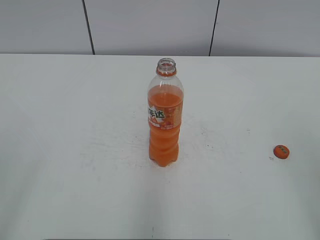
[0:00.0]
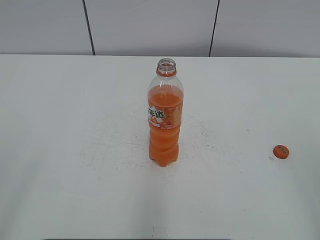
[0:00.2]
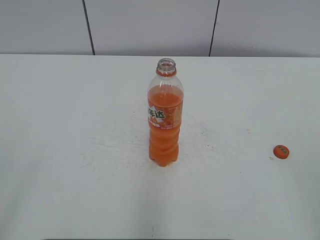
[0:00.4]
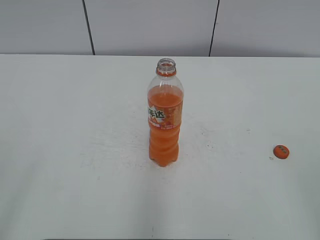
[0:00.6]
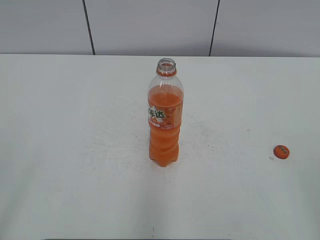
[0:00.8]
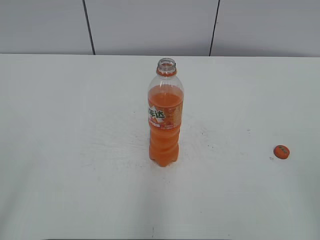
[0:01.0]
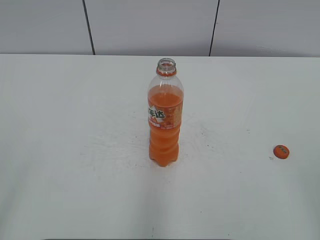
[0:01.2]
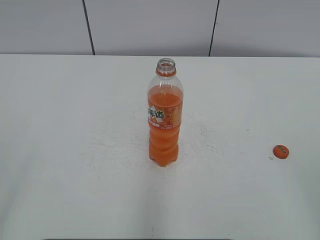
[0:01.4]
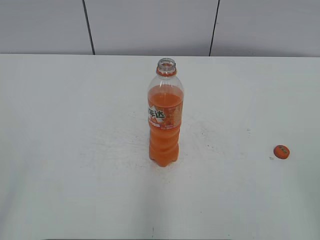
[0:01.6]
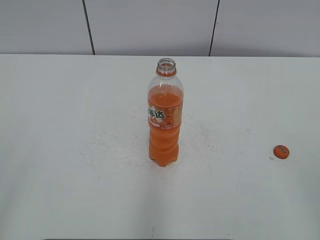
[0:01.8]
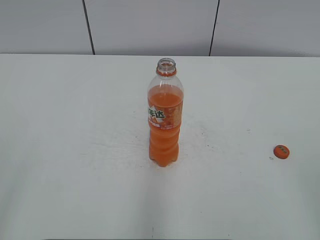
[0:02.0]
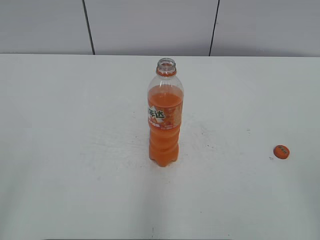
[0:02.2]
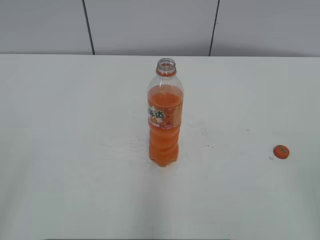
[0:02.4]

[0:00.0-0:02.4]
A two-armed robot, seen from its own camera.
0:01.2 to 0:02.4: Neither gripper changes place.

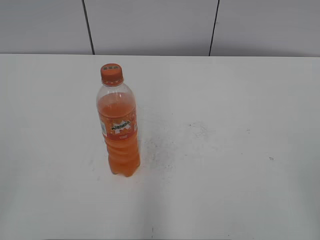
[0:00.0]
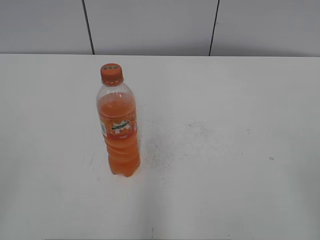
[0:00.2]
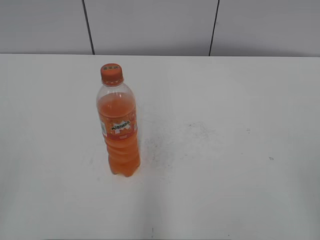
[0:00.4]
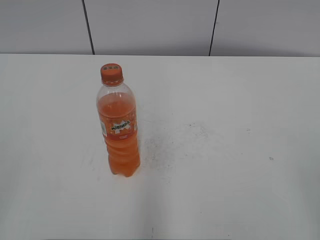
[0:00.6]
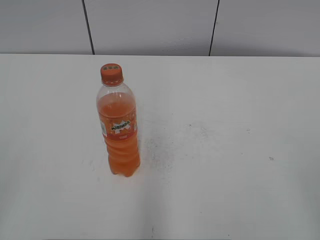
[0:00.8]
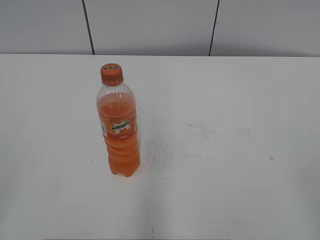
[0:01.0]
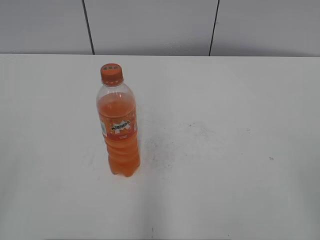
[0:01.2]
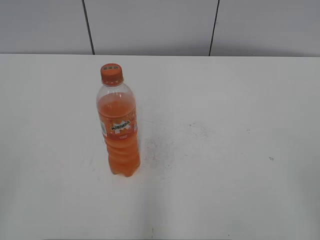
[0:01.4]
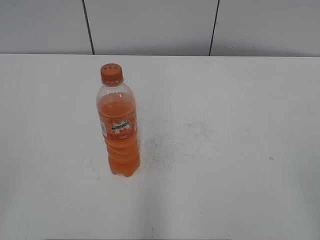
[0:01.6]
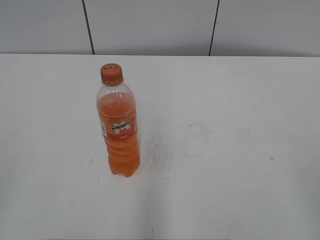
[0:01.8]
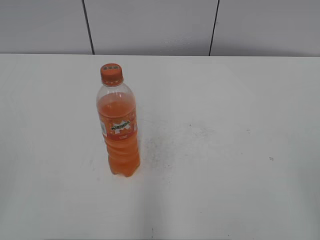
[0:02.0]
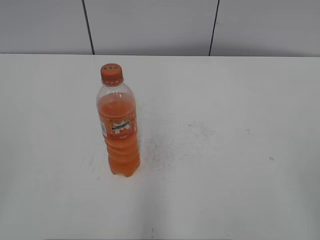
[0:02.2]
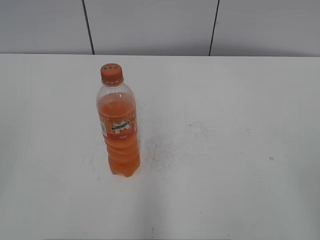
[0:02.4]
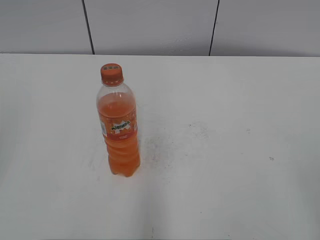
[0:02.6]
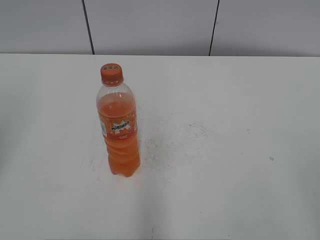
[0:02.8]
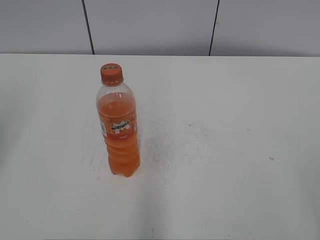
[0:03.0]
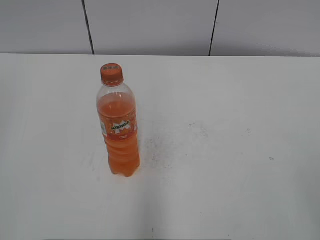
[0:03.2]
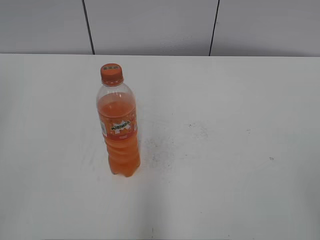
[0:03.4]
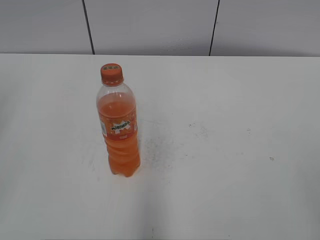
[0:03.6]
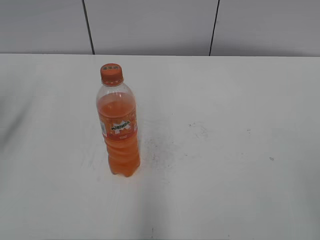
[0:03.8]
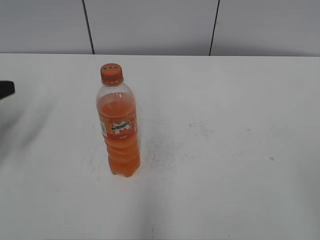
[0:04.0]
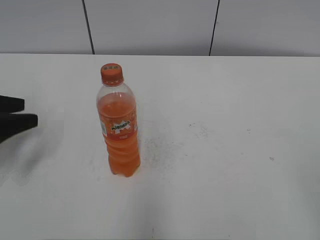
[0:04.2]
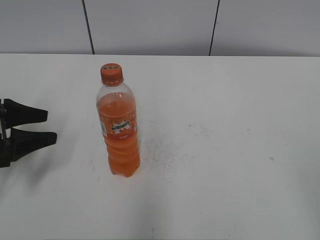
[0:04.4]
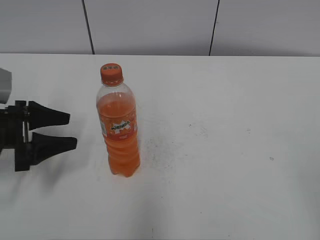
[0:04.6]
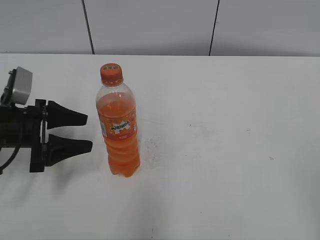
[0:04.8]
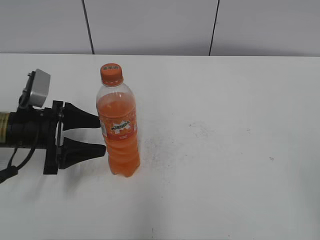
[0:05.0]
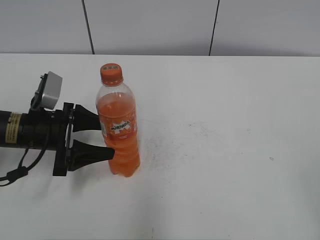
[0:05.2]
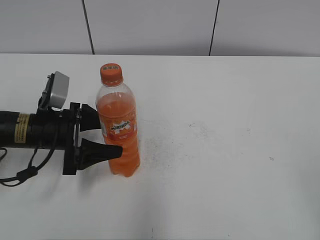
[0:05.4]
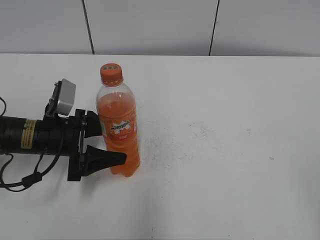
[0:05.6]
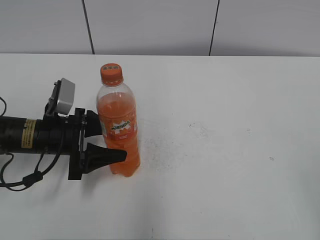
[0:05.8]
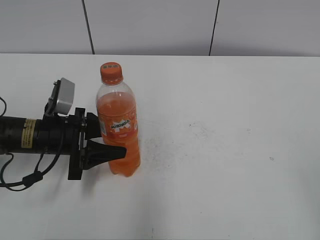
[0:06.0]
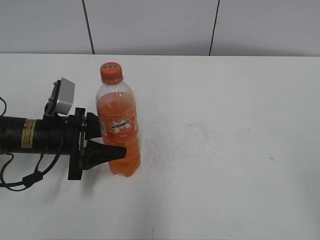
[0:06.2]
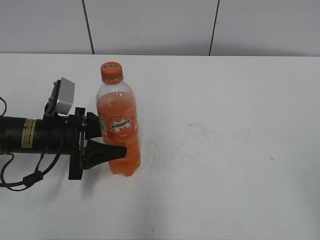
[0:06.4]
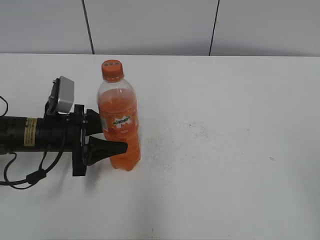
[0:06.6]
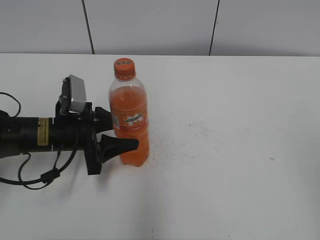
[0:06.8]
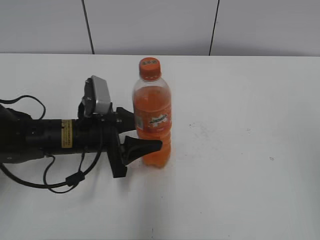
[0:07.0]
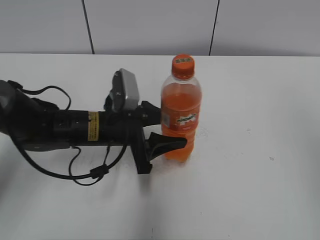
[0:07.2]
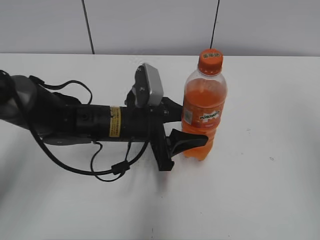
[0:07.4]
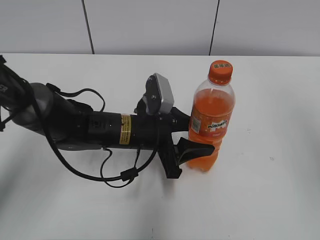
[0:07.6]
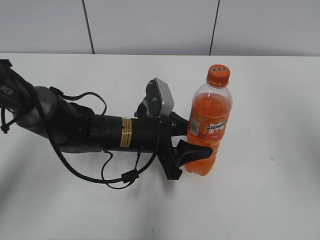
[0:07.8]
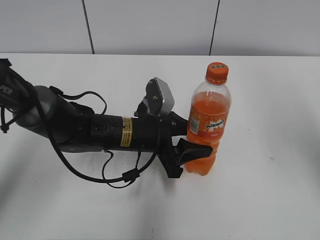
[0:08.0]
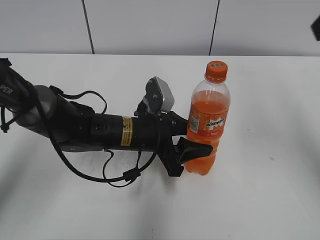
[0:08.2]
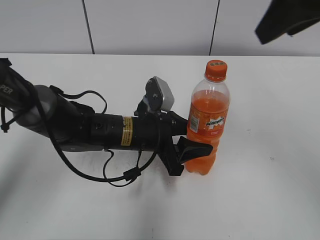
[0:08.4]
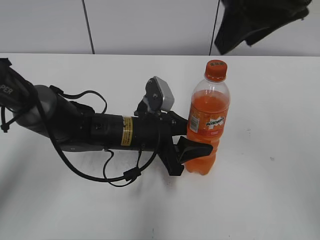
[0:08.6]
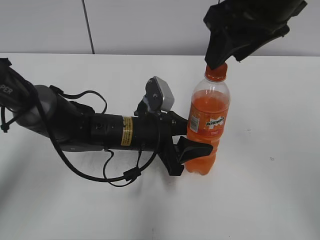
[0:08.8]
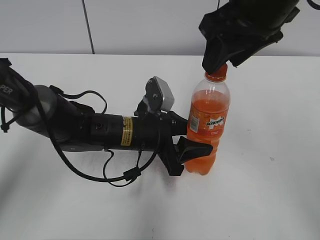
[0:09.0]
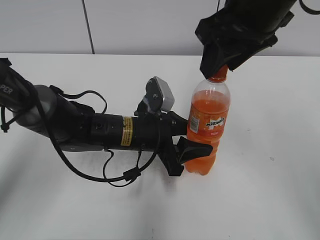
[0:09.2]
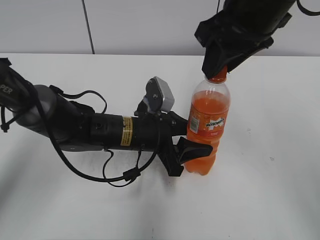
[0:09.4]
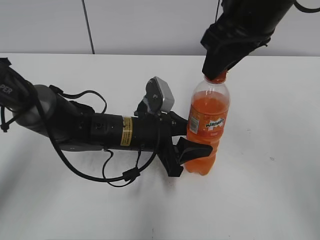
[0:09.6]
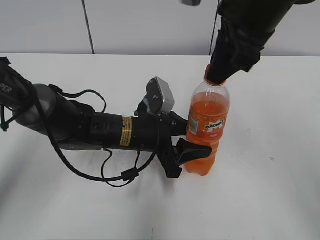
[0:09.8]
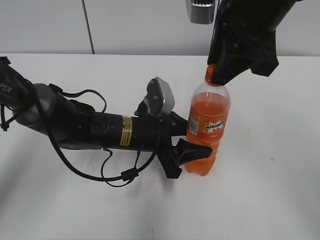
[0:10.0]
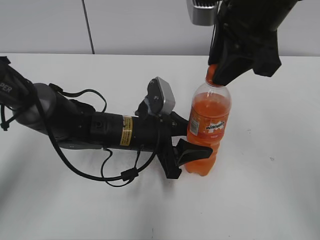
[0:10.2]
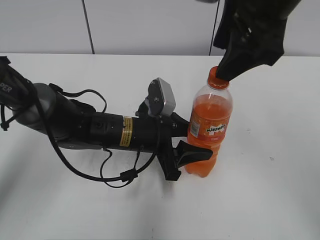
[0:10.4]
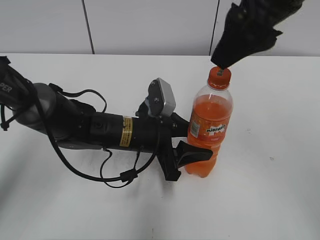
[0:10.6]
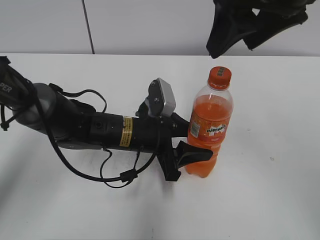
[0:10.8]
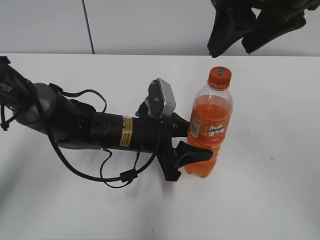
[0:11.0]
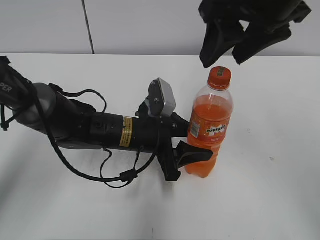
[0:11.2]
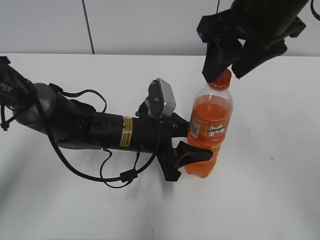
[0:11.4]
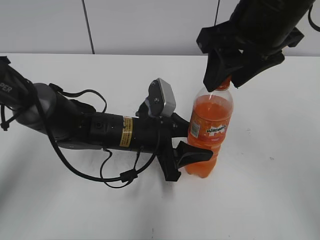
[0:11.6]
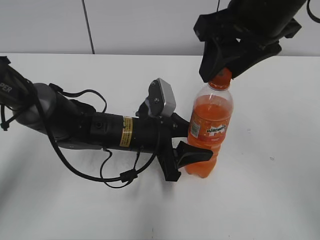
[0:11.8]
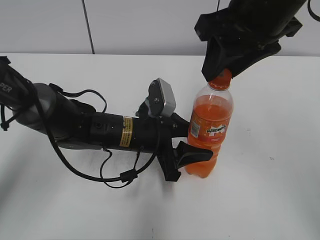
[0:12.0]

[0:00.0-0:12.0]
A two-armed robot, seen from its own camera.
Step, 0:00.0 to 0:06.2: Grab the Mirinda with the left hand.
Step, 0:06.6 to 0:08.0: Move the Mirinda from left to right.
0:03.0 to 0:04.4: The left gripper is displaced downward and forward by approximately 25 cm.
0:04.4 to 0:06.0: The left gripper shifts about 10 cm to the right, and closes.
0:06.0 to 0:07.6: The left gripper moves to the right, about 15 cm. The right gripper moves upward and forward, roughly 20 cm.
0:07.6 to 0:09.0: The right gripper goes roughly 25 cm to the left and forward.
0:09.0 to 0:10.4: The right gripper closes, then opens again.
0:10.4 to 0:12.0: The right gripper closes up.

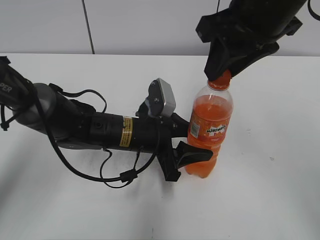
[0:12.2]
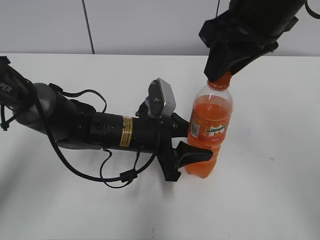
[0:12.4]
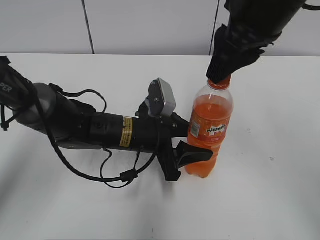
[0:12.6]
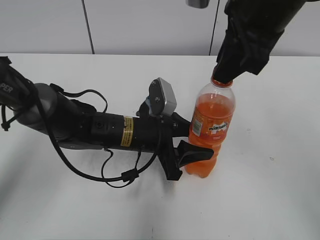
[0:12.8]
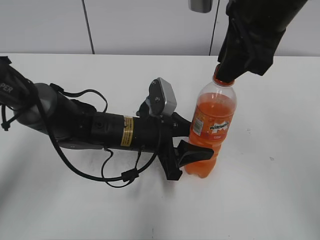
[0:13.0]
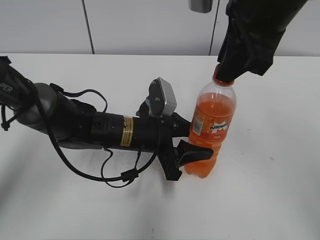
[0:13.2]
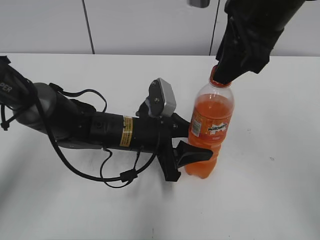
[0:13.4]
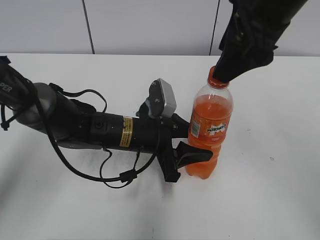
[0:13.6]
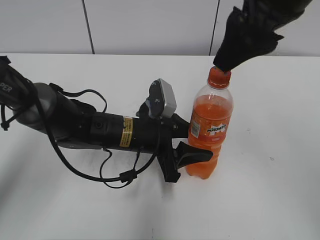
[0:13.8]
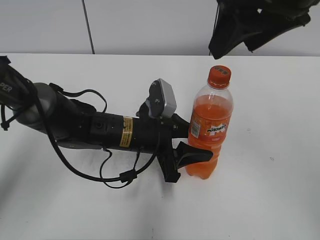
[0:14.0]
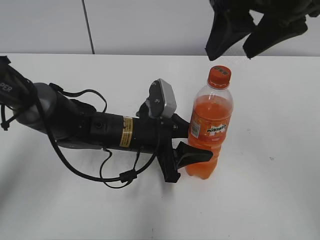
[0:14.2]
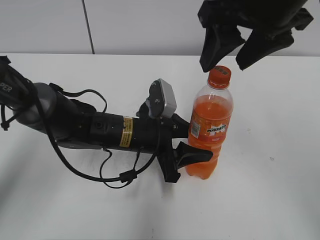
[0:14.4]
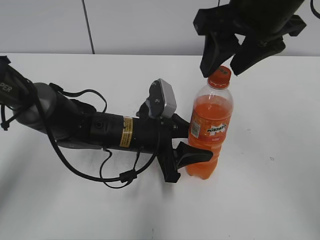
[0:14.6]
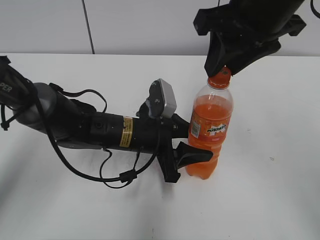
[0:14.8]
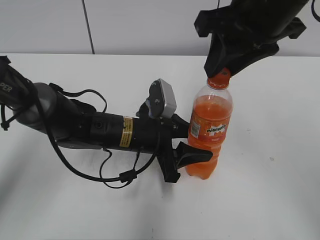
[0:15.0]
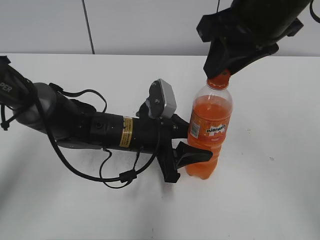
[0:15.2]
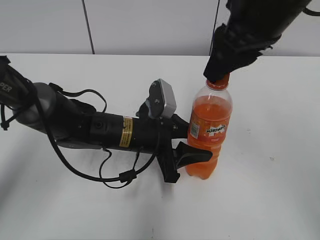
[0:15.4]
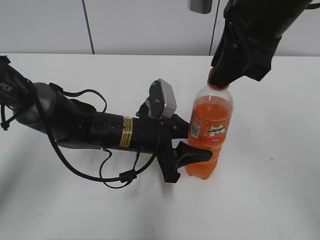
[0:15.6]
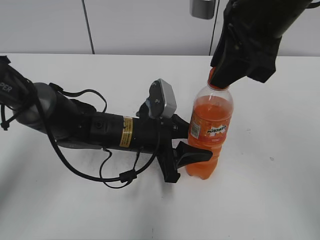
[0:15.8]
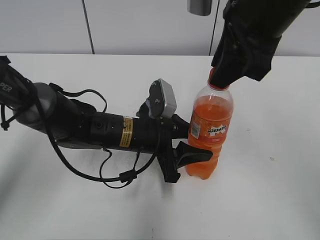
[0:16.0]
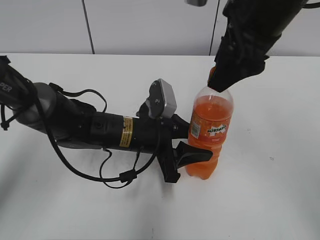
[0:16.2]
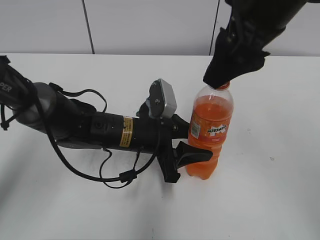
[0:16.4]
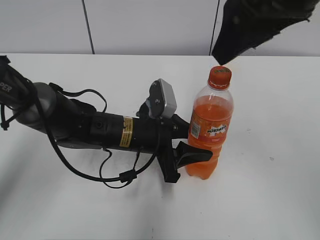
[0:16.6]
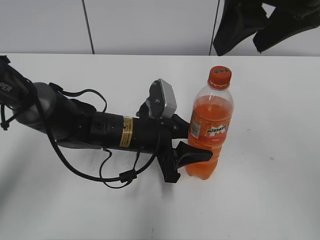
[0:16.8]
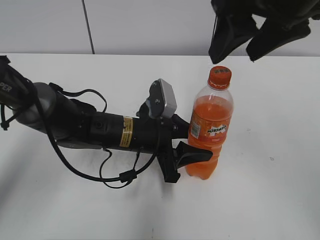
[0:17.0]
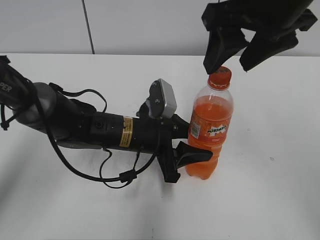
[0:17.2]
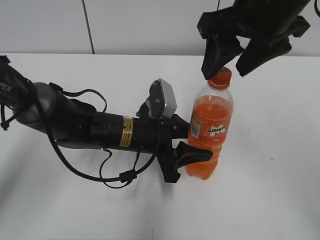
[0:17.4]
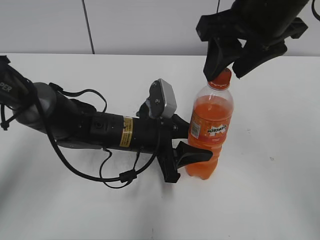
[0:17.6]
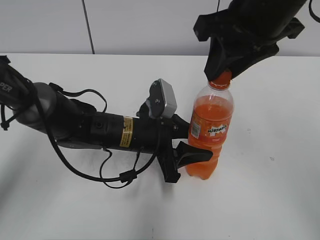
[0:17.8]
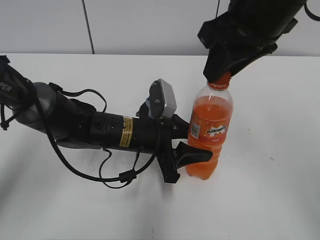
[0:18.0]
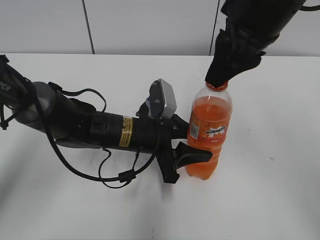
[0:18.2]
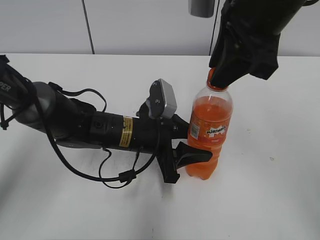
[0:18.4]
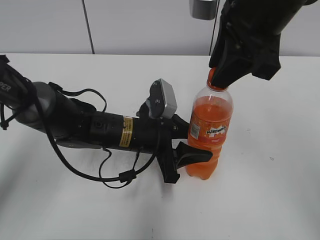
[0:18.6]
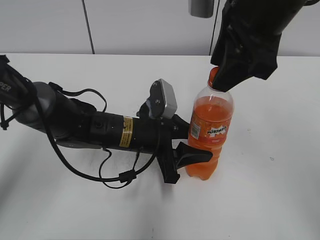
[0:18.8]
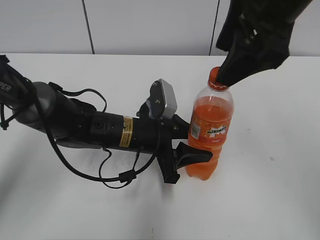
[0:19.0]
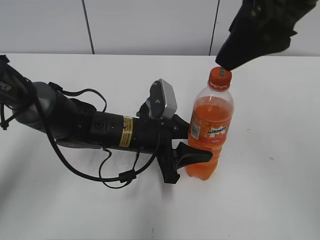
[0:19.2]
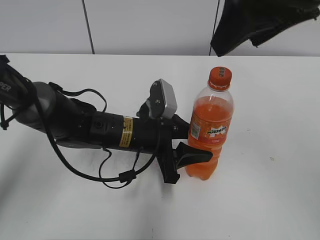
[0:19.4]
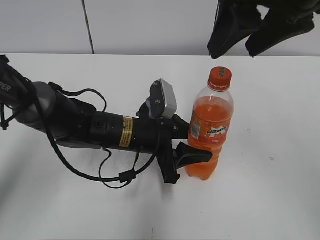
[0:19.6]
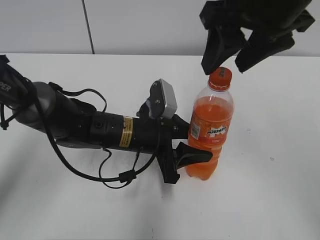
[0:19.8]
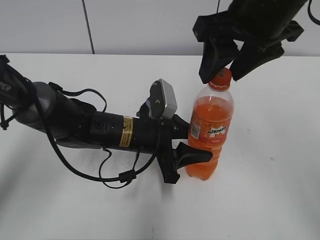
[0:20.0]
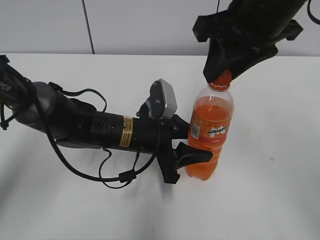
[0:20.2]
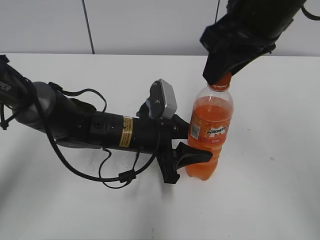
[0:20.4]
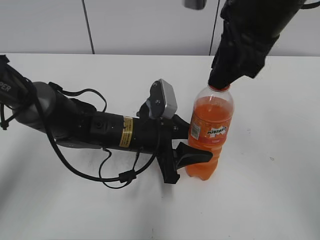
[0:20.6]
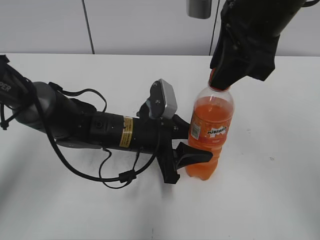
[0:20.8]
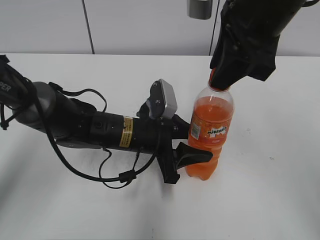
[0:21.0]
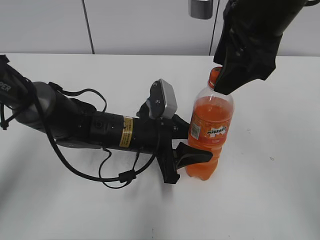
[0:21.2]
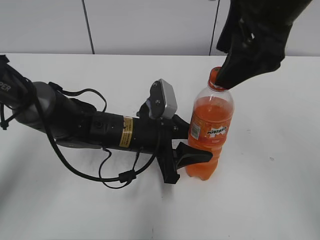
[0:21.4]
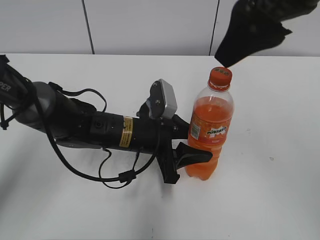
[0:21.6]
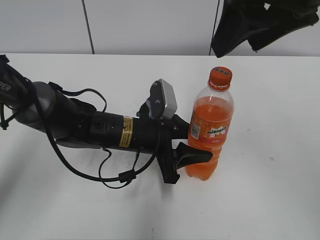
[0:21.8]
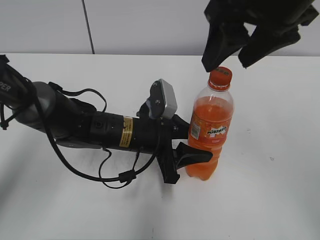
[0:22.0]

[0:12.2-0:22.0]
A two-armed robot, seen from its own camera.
0:12.2 to 0:13.6: The right gripper opens.
0:13.6 to 0:15.0: The right gripper closes up.
0:15.0 to 0:16.4: The right gripper opens.
0:16.4 to 0:17.8: The right gripper closes.
0:17.8 to 0:19.2: The right gripper moves about 5 cm, and opens.
0:19.2 to 0:20.6: The right gripper ends up roughly 5 cm from where it was, and closes up.
0:20.6 to 0:22.0: The right gripper opens.
